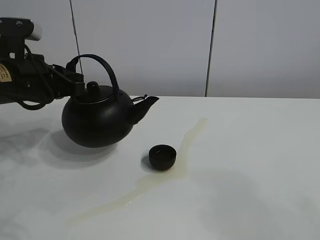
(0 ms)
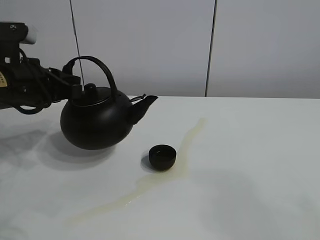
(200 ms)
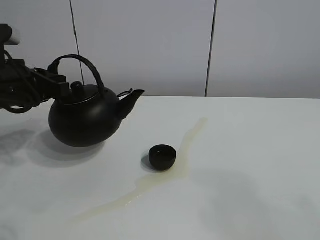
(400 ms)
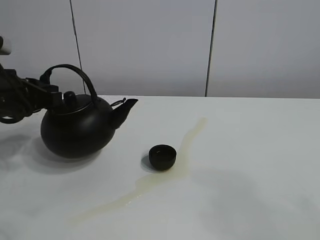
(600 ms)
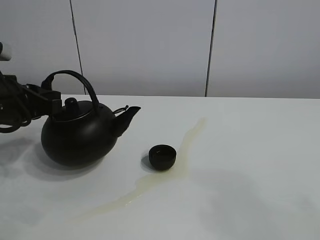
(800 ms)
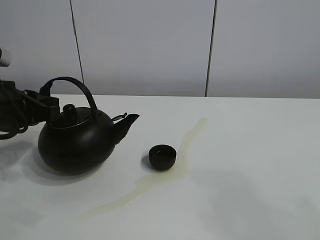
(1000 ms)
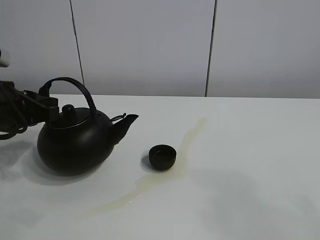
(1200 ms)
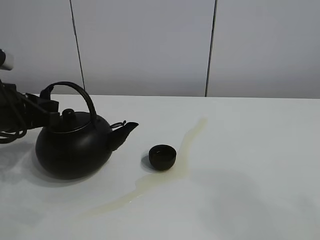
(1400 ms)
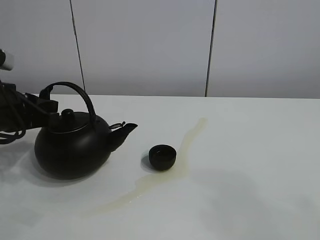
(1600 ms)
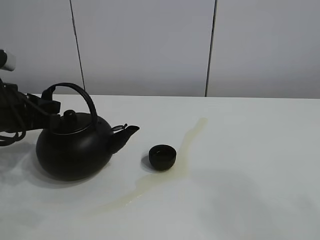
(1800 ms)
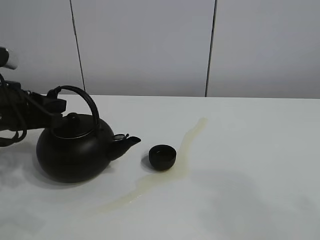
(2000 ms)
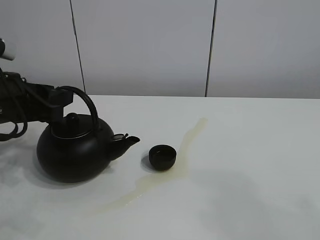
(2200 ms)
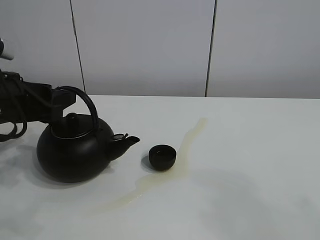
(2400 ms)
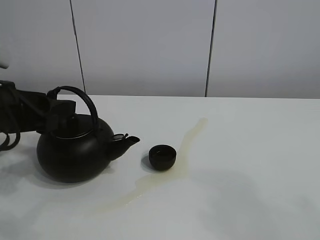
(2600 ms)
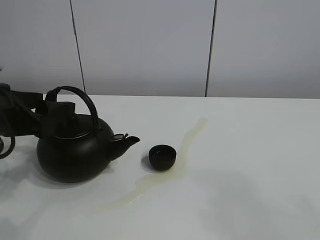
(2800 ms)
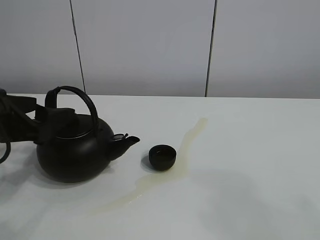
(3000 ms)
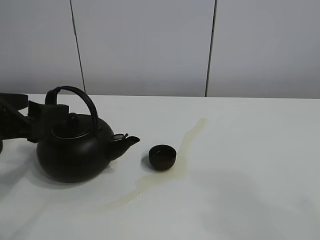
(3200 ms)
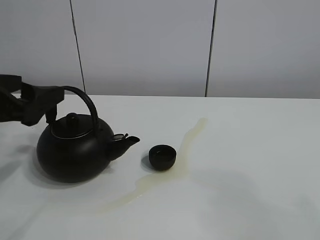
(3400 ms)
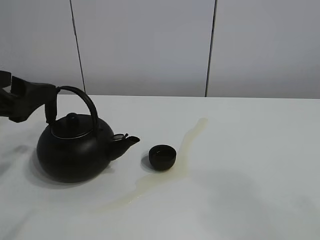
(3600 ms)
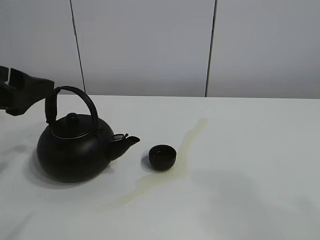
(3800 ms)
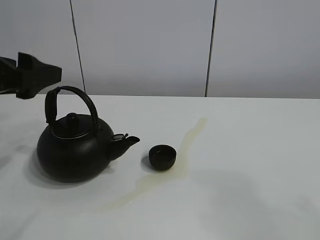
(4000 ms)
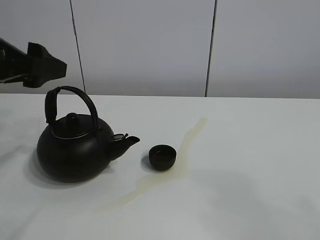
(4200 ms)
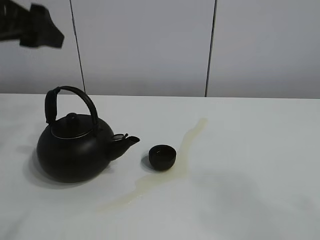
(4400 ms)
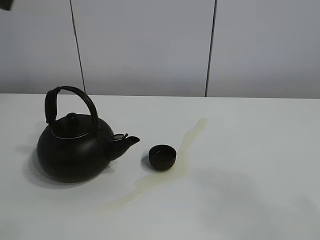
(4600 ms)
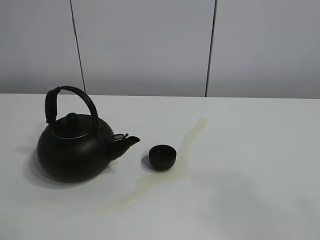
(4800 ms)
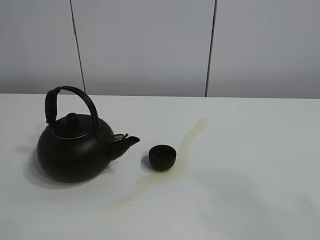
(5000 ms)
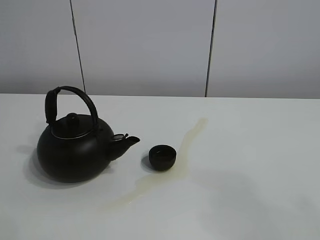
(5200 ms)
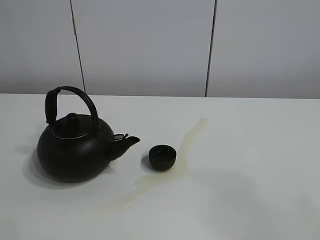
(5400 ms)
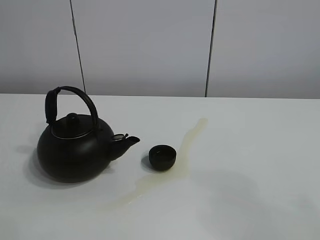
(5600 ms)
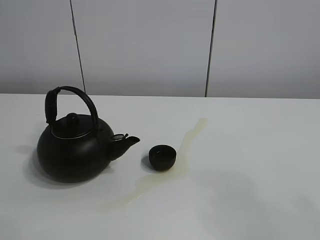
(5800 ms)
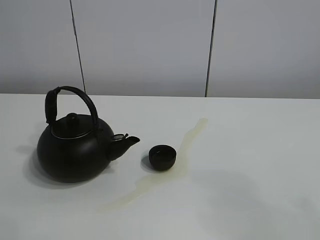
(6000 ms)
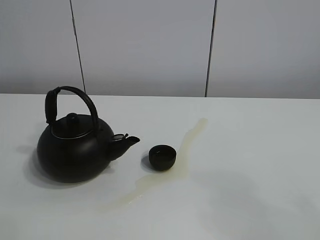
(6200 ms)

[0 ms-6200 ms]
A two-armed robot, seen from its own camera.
Task of the whole recording: pour tea into the teacup.
0 ms to 1600 ms: The left gripper changes place by some 5 cm.
1600 ms to 3200 ms: The left gripper opens its fingers.
3200 ms to 4600 ms: The left gripper travels upward by about 20 cm.
